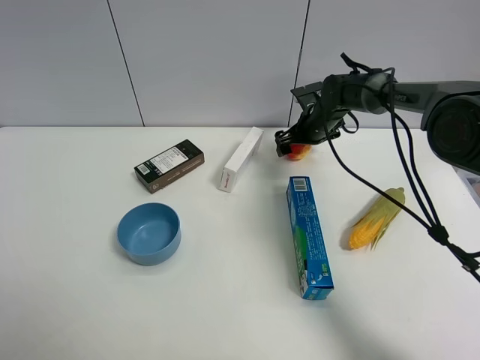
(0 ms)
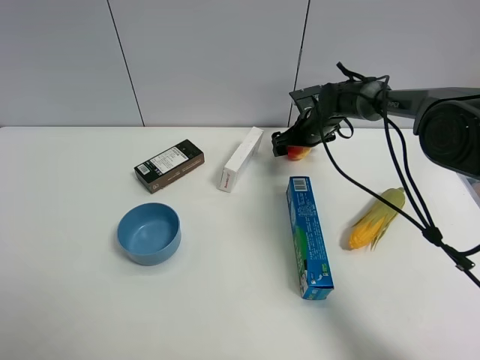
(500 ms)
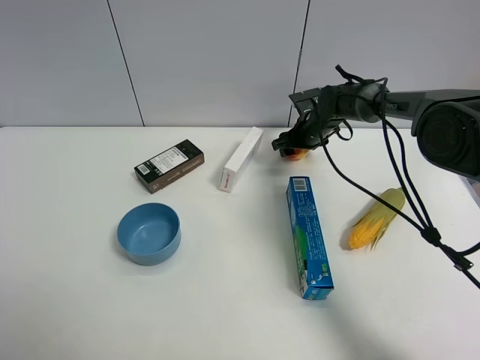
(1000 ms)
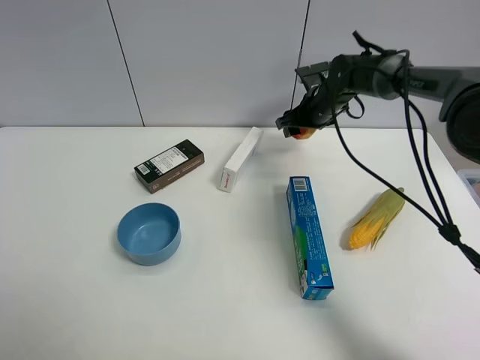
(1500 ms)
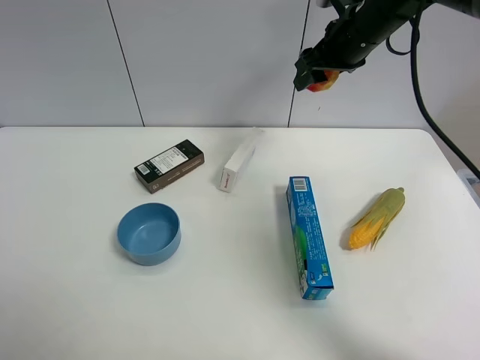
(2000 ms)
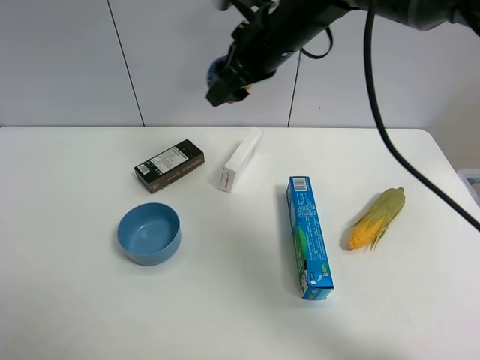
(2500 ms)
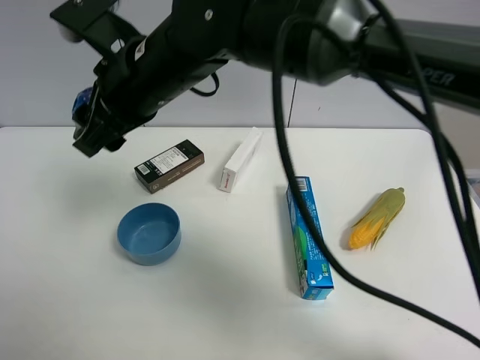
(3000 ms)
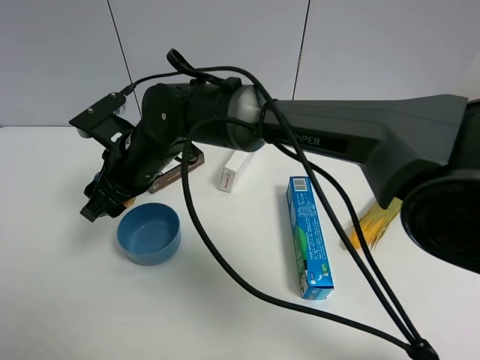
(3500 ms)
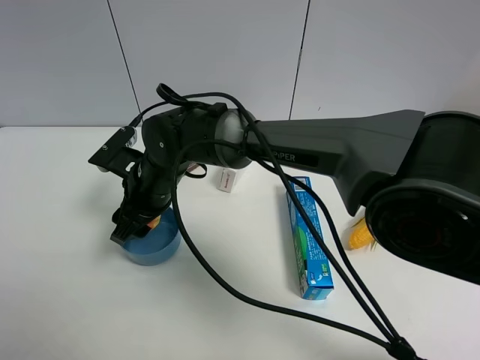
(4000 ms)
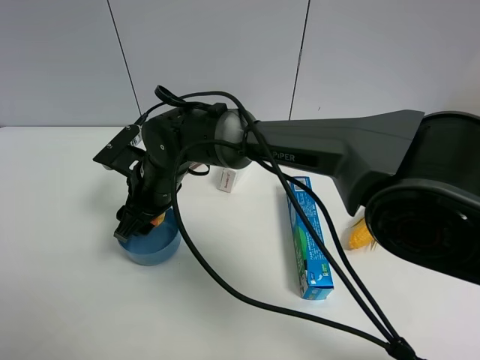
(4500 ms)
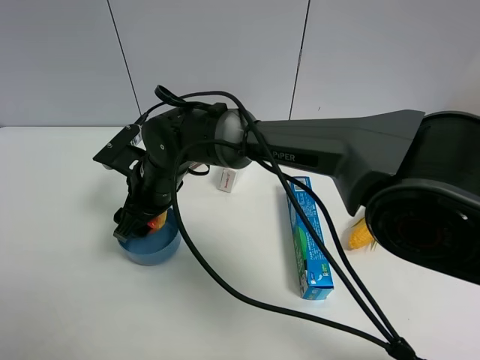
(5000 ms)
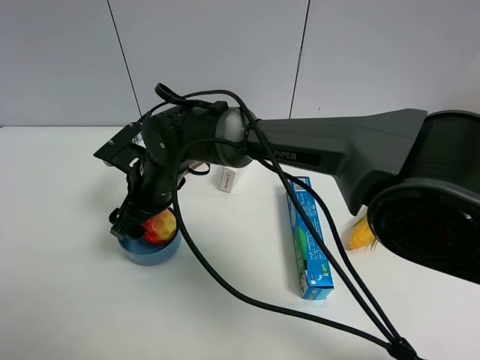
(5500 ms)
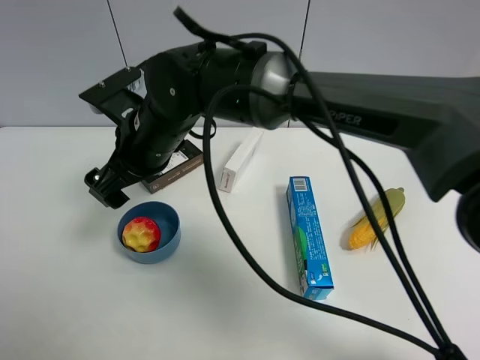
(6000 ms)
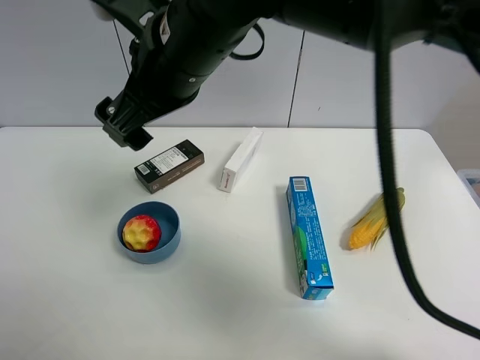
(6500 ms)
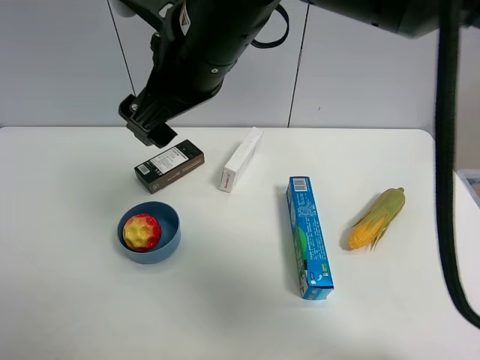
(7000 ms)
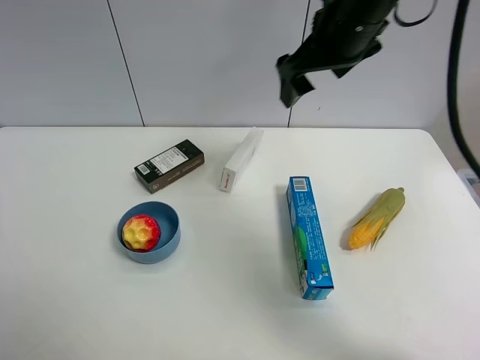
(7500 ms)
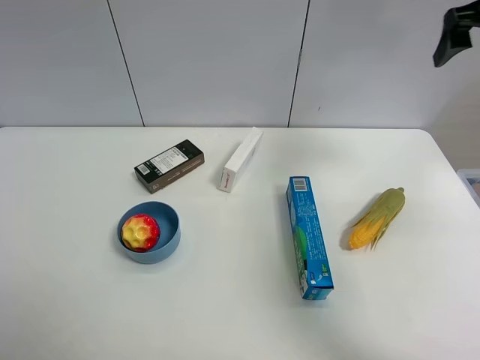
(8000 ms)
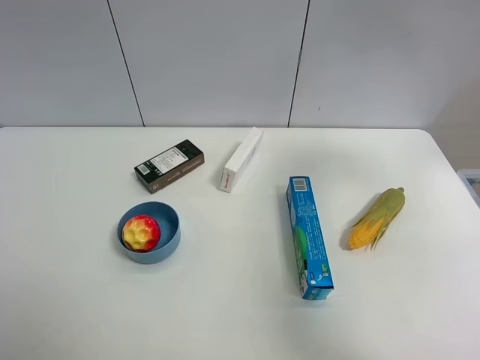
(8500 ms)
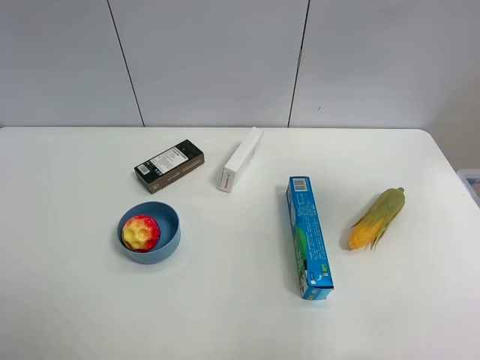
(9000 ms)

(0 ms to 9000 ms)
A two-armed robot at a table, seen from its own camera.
Task of the whole recording: the gripper move the object.
Step, 1000 ms - 5000 ms: Place the colorful ball into the blue bowl with the right gripper.
0 ms - 2000 ms: The right gripper moves upward, about 20 cm, and closes its fingers.
2000 ms - 4500 ms: The right gripper travels to the left, downward and backward by approximately 35 cm.
4500 ms - 7000 ms: The right gripper is displaced upward and to the right by some 20 cm, and opens.
7000 ms - 9000 ms: The right gripper moves to the right, about 35 cm.

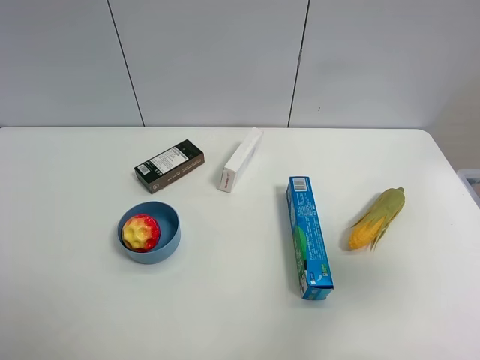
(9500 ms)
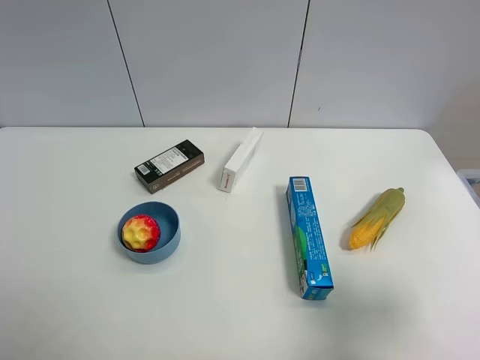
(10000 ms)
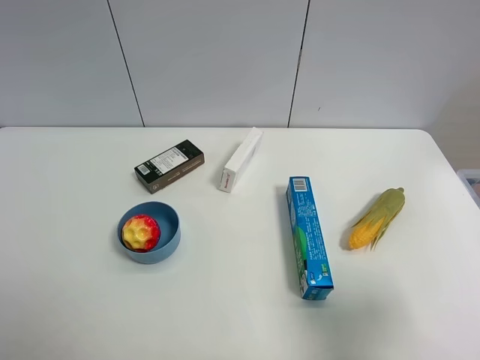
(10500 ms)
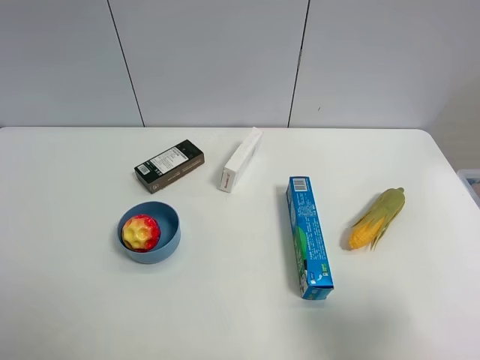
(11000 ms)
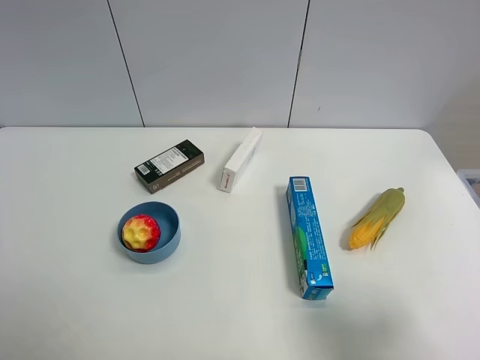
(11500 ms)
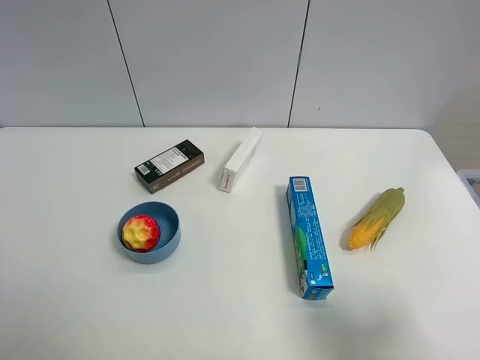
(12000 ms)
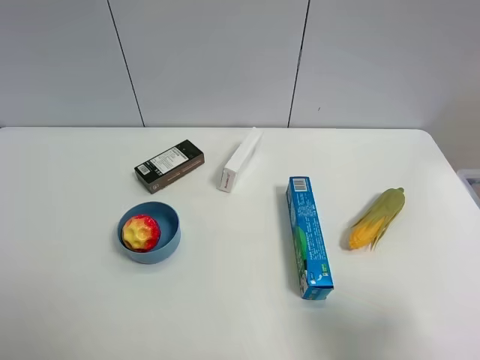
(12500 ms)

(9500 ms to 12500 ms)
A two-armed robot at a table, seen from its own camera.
Task of the whole recording: the gripper move the object.
9500 ms - 11000 ms: The right gripper heads downward and backward, covering about 10 cm.
11000 ms - 12500 ms: The two grippers keep their place.

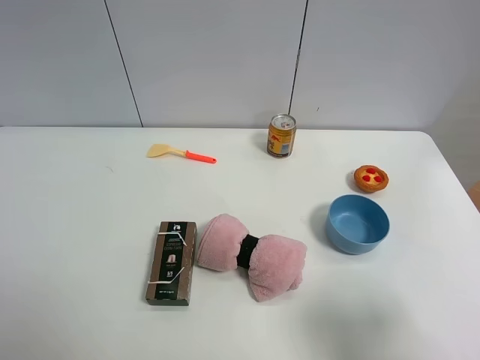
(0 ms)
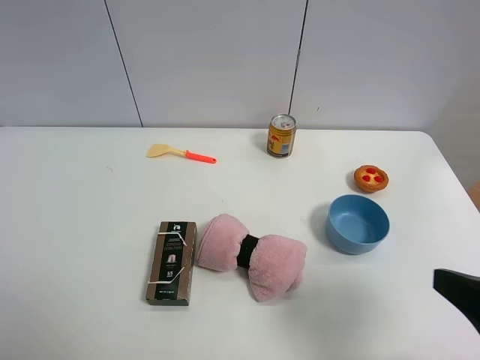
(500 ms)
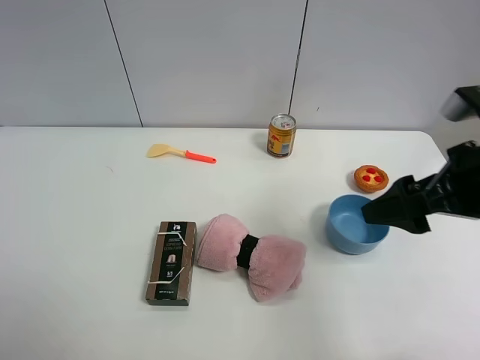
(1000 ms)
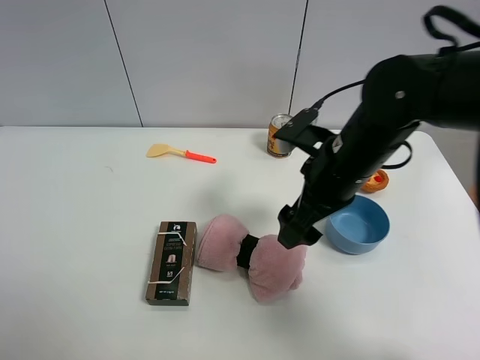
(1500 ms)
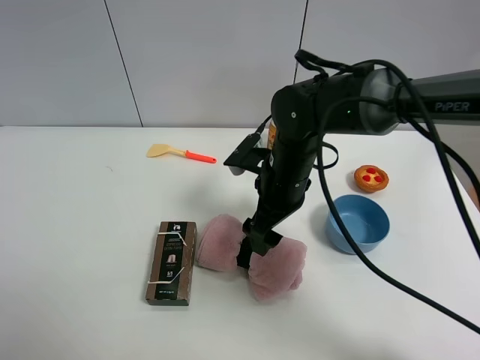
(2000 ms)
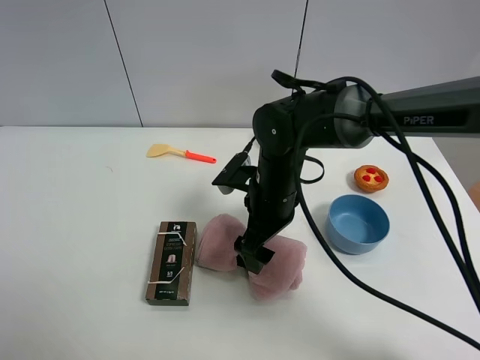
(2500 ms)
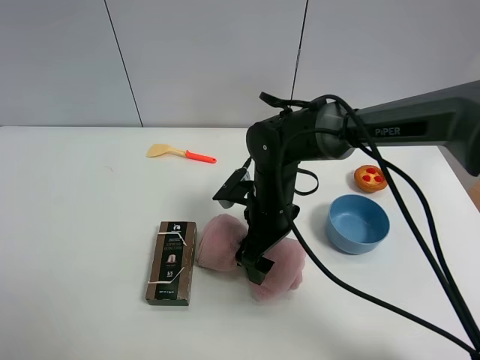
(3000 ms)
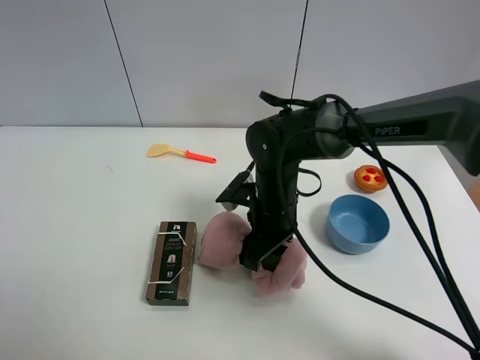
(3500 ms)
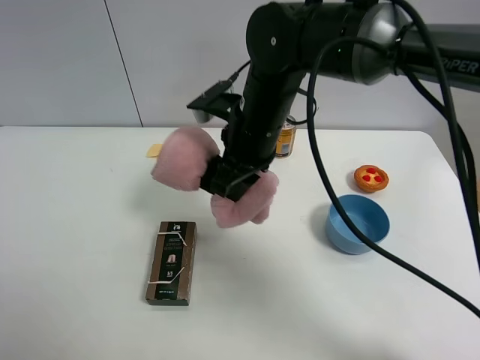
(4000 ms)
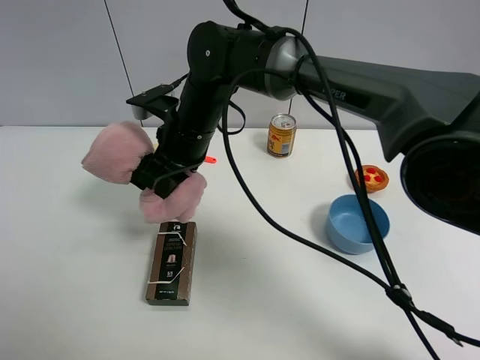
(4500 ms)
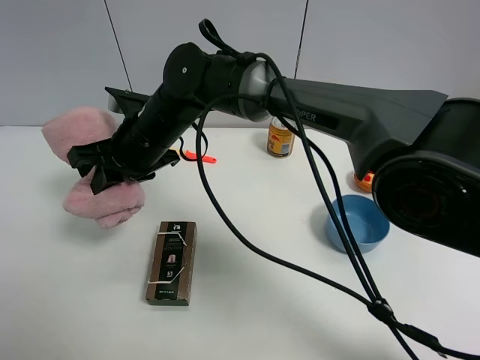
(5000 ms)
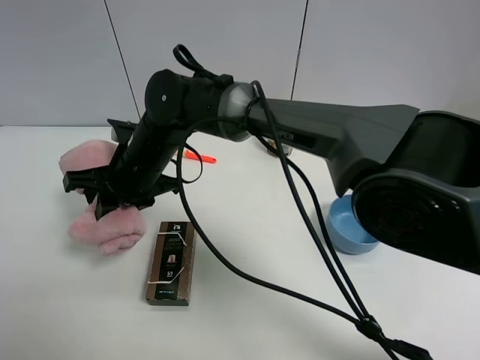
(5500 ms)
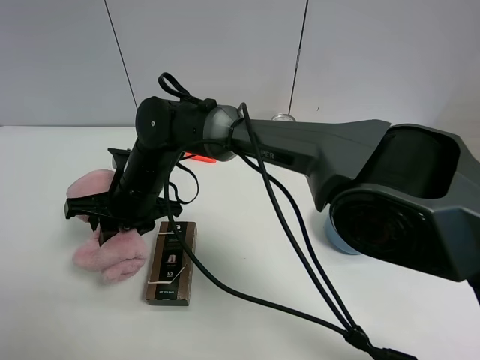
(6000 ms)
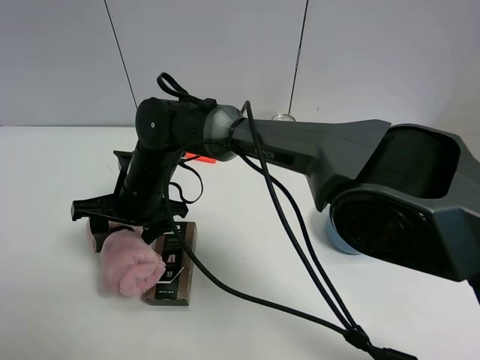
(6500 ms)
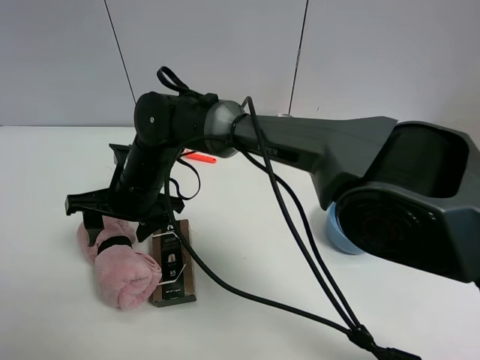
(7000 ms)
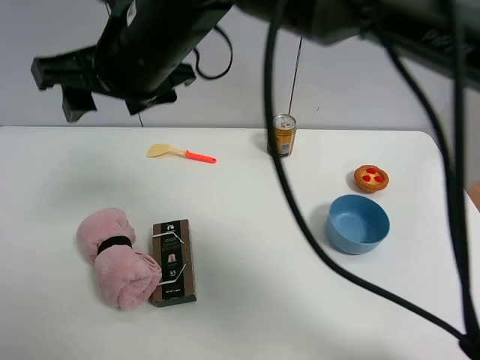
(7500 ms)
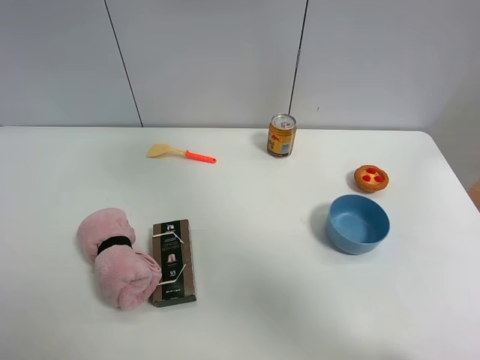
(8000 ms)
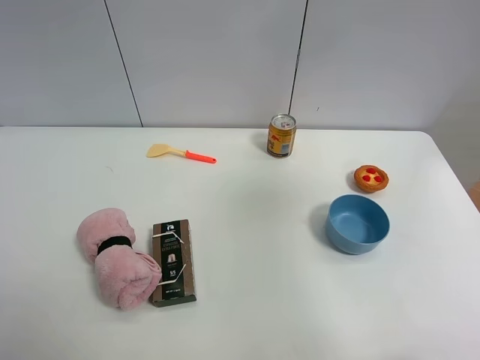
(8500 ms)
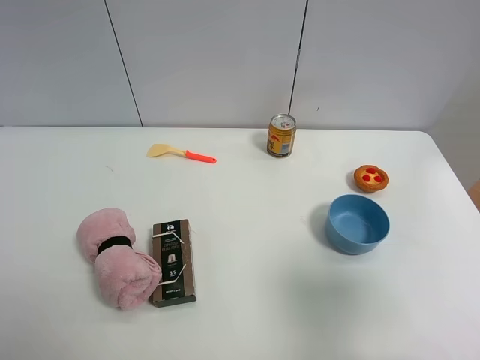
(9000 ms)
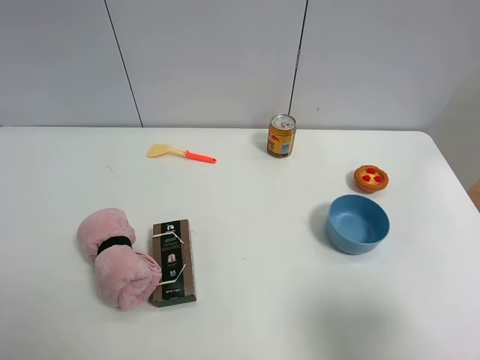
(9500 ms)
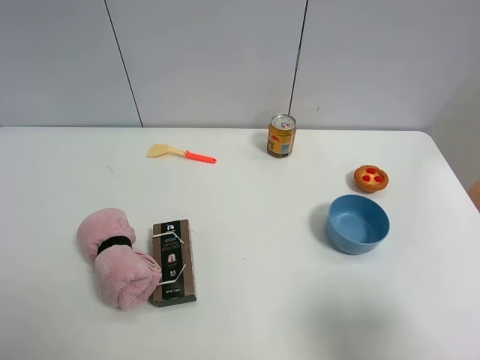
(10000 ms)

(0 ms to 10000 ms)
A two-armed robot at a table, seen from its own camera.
Task of the whole recording: the gripper move the object.
Step, 0 ms - 3000 ms: Grasp the pink towel with the right gripper.
Step, 3500 ms - 6500 ms: Place the pink towel on the table with the right gripper.
0 ms - 2000 ms: The right gripper moves forward and to the left, some 35 cm.
2000 ms - 4000 ms: The right gripper shifts about 10 cm upward, and closes its fingers.
4000 ms - 6000 ms: The right gripper moves to the left and downward, approximately 20 cm.
6000 ms - 8000 ms: The right gripper shifts approximately 40 cm upward and to the right, and opens.
8000 ms - 10000 ms: The right gripper heads backward, downward and to the right, covering roughly 40 cm.

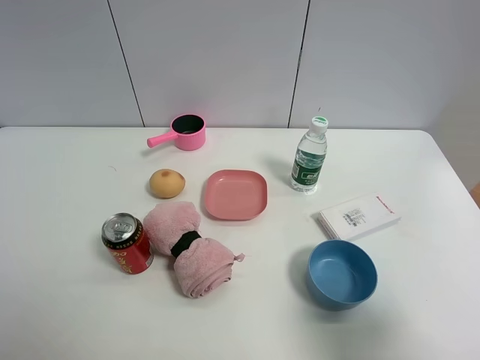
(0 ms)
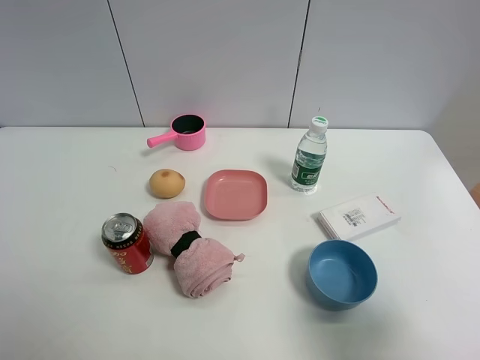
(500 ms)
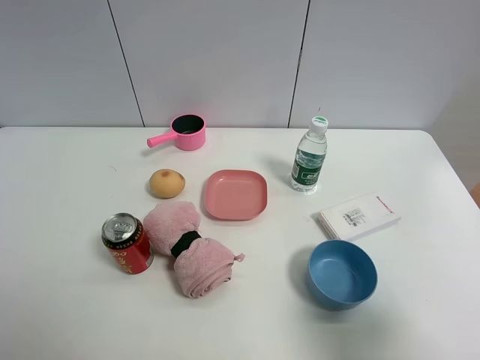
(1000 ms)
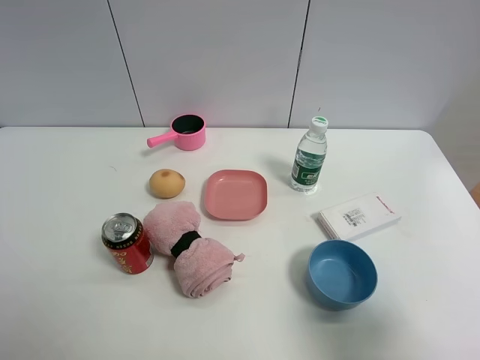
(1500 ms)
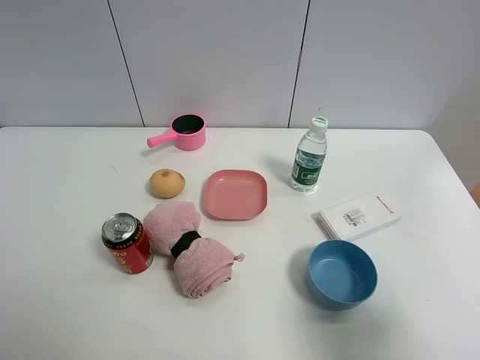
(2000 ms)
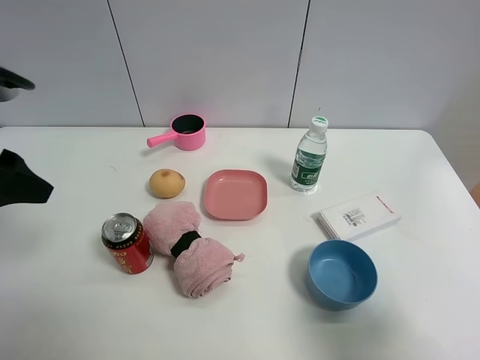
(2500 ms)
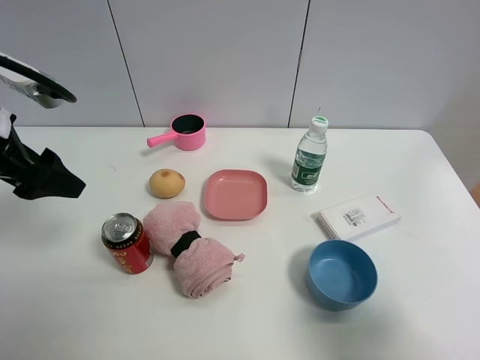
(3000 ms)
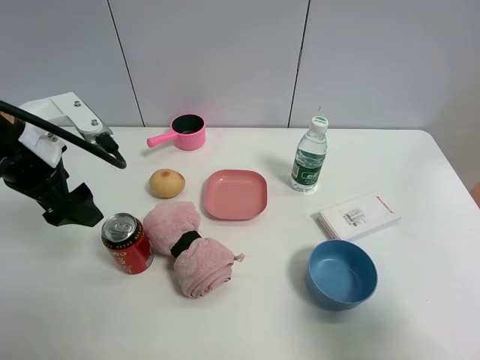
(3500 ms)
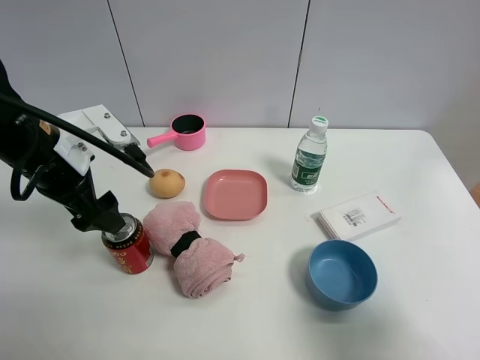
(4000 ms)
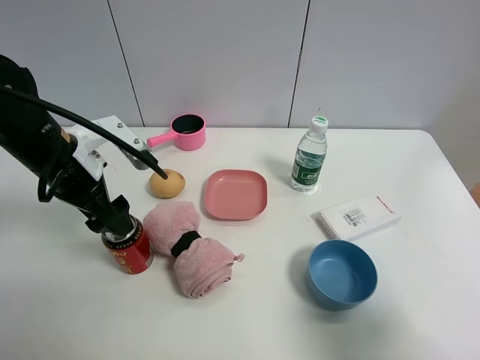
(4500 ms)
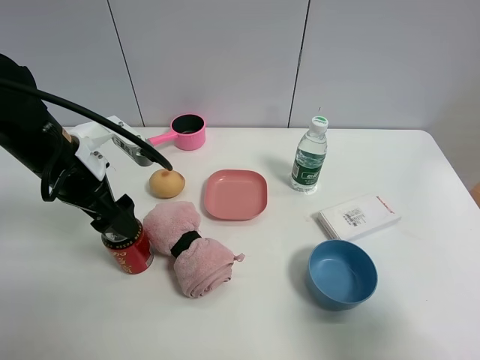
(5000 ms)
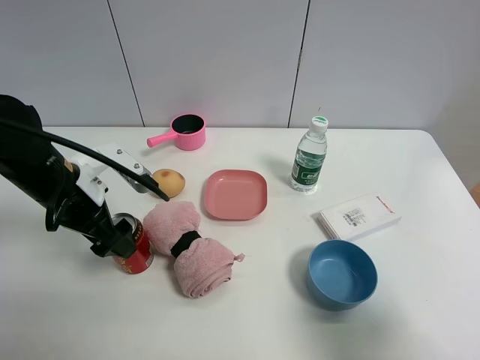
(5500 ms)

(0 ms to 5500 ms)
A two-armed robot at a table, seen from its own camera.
Task of the whole recording: the gripper move the object.
2000 ms - 3500 ms: The left gripper is displaced forward and to the right by roughly 20 cm.
3500 ms - 5500 ms: The left gripper travels downward by approximately 10 cm.
